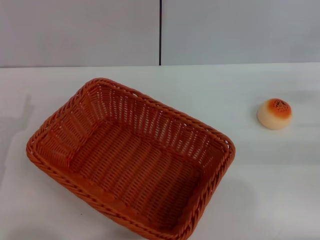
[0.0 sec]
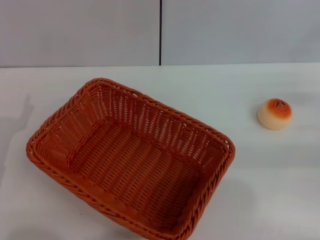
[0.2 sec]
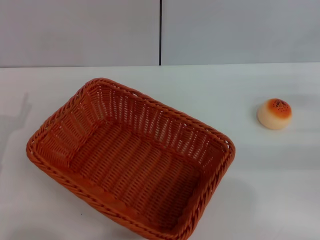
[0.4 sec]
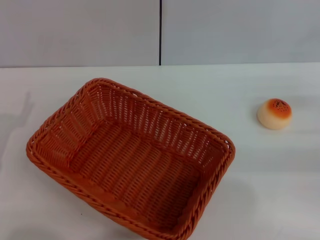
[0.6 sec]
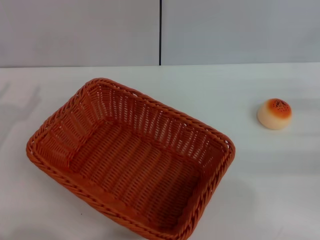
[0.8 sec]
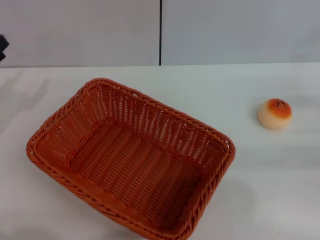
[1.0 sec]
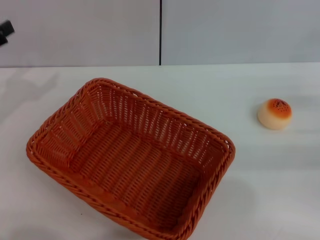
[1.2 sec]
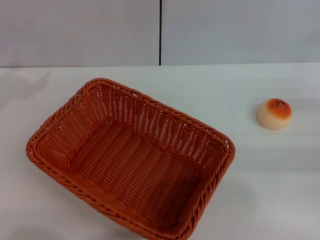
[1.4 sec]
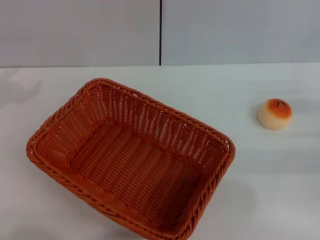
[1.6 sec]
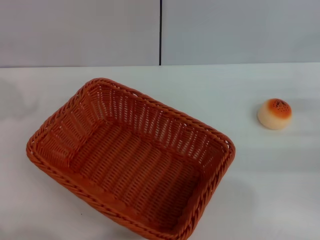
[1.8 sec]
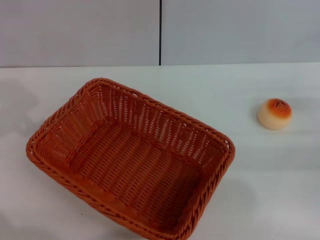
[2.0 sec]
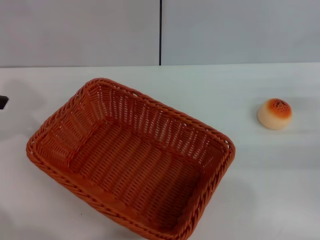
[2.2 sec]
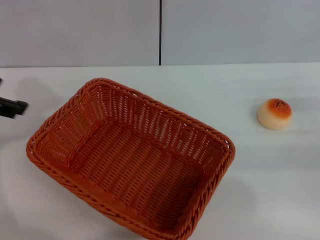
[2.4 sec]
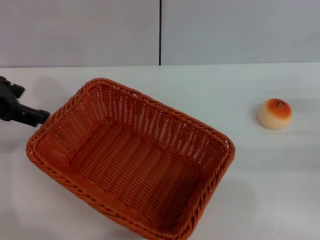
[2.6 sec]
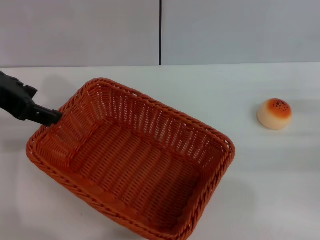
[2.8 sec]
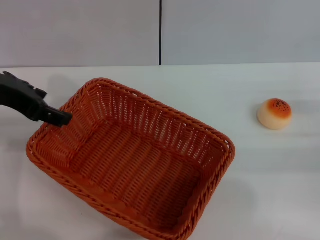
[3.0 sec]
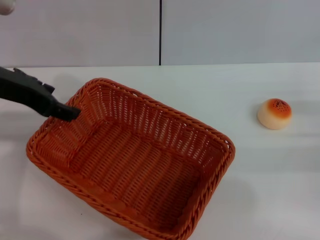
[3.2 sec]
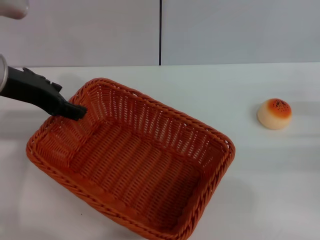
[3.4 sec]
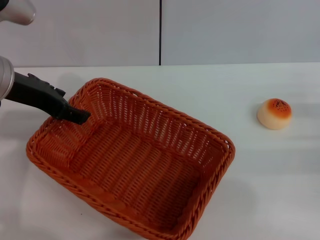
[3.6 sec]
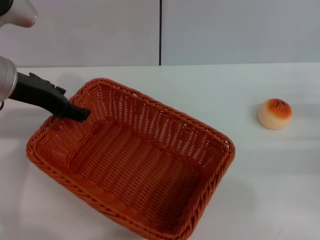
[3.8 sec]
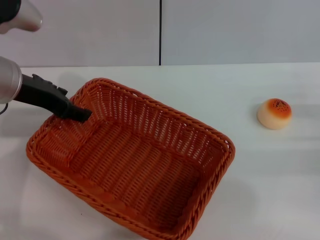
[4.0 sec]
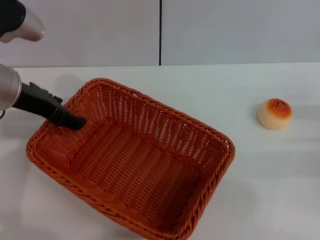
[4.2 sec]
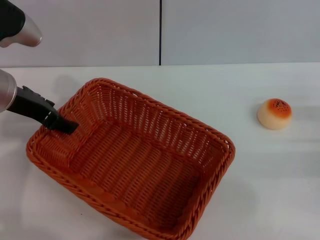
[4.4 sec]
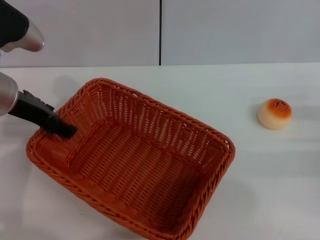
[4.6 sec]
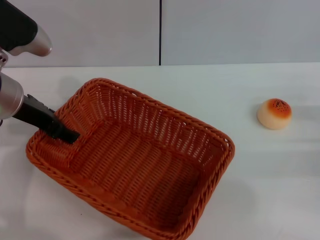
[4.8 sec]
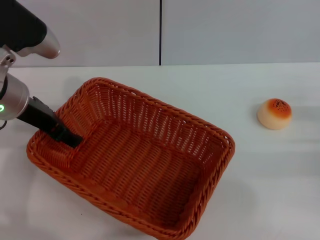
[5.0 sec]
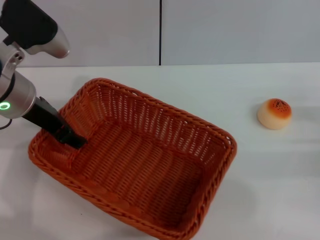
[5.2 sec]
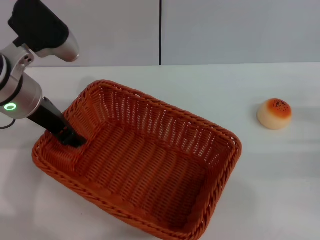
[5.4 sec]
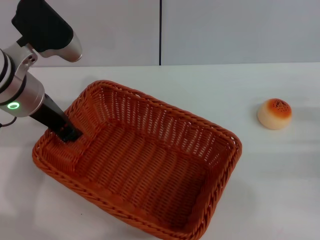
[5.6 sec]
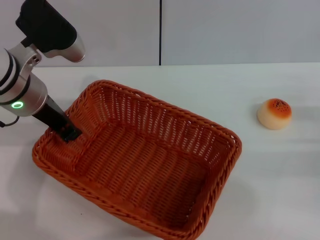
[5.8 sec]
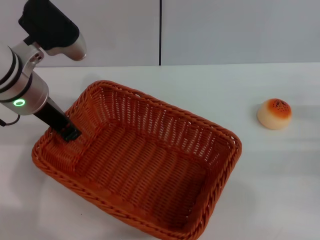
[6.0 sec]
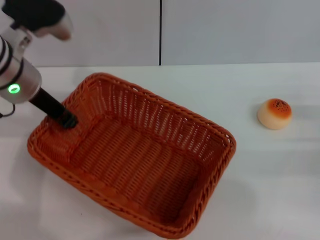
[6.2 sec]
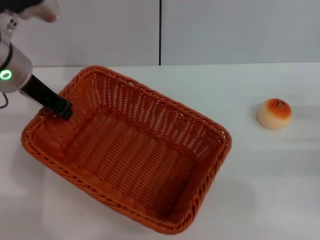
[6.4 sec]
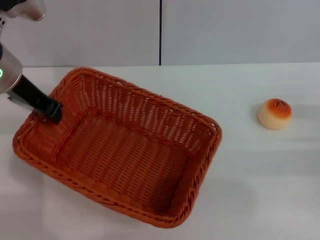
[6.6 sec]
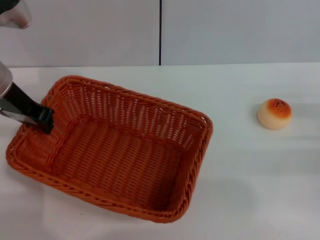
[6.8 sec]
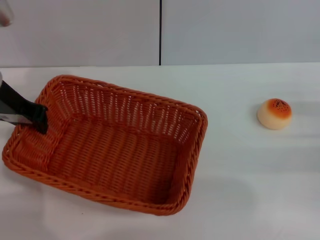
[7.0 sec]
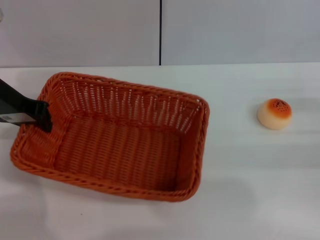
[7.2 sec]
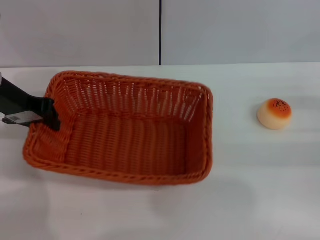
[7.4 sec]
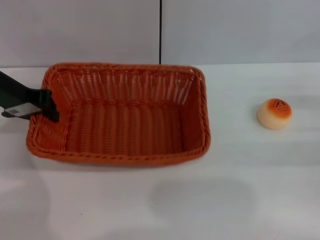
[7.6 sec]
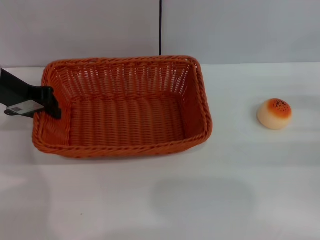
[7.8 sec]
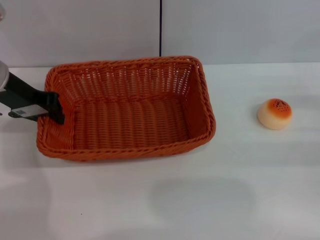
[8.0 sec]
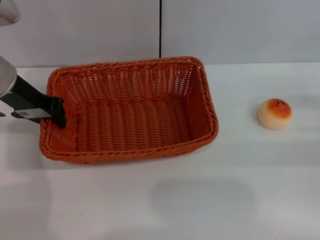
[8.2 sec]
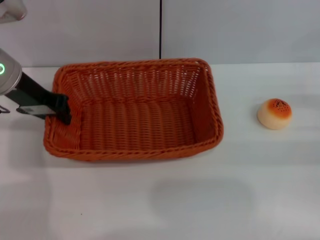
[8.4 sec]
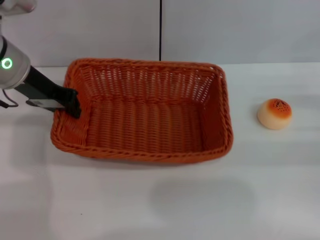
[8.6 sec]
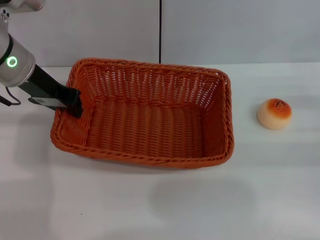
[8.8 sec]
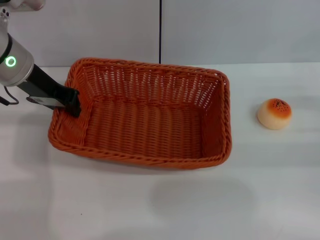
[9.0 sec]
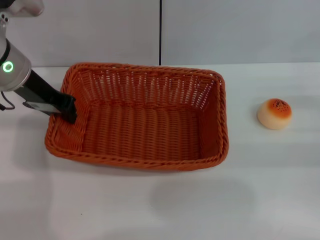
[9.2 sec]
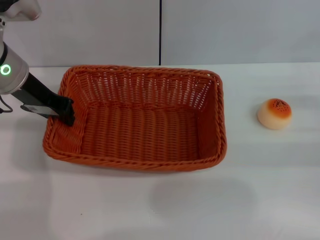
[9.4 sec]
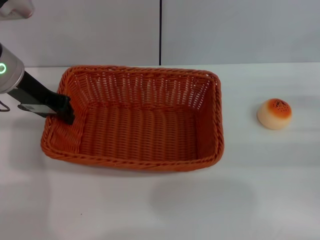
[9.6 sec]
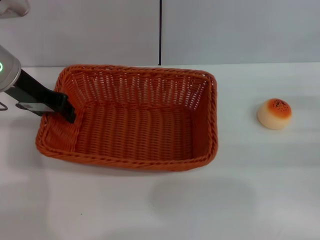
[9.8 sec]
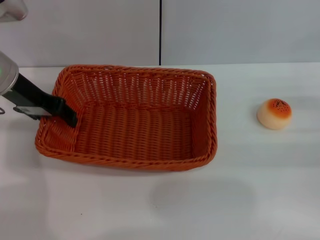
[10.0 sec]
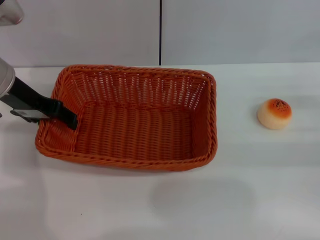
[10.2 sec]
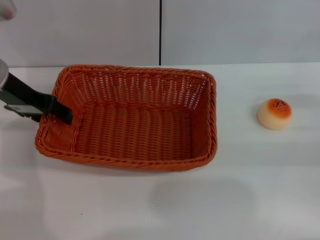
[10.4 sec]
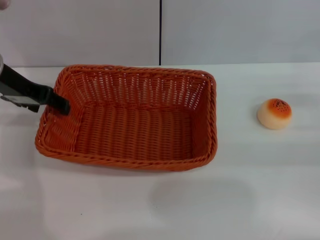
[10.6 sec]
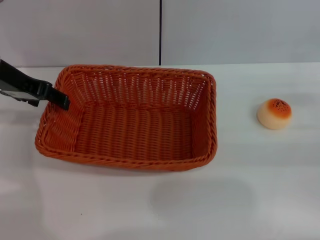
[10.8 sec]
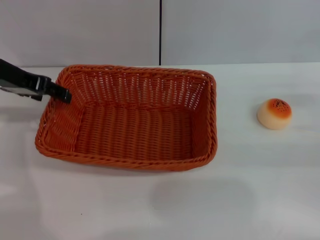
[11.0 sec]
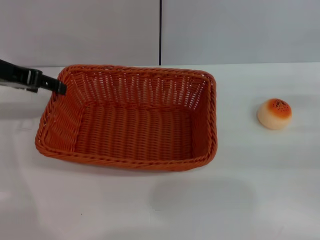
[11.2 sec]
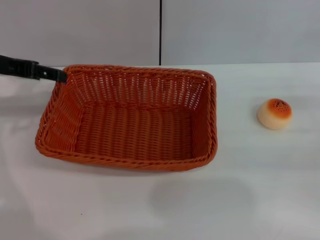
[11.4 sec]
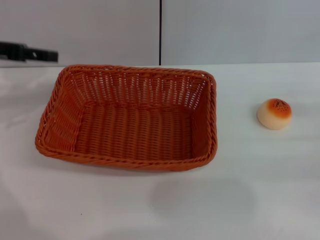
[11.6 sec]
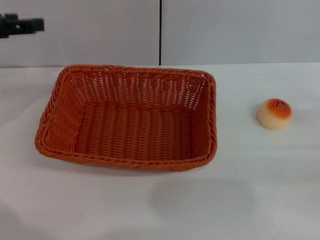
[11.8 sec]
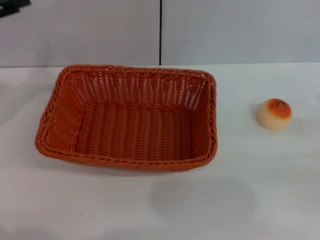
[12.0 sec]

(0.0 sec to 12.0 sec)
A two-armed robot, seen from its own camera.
Step, 0.0 sec - 11.6 sec: Move the basket to the center of view with the left gripper.
1.6 sec - 3.0 sec: The left gripper is displaced to the right by roughly 15 cm.
3.0 sec - 4.4 sec: The left gripper moves downward, some 5 cm.
4.4 sec - 6.0 sec: The left gripper closes its fingers.
6.0 sec - 7.6 sec: The left gripper shifts roughly 10 cm to the left.
7.6 sec - 9.0 sec: The left gripper ends up roughly 5 cm from where it was.
9.0 sec - 10.4 sec: The left gripper opens.
10.4 sec - 12.0 sec: The left gripper travels to the left by approximately 10 cm.

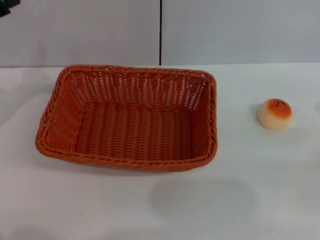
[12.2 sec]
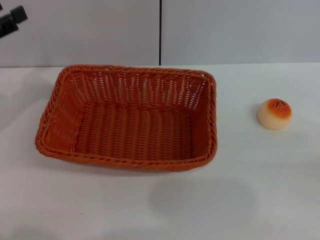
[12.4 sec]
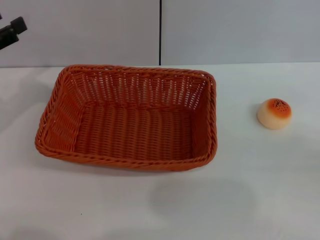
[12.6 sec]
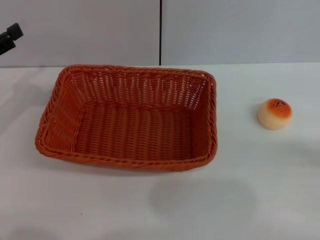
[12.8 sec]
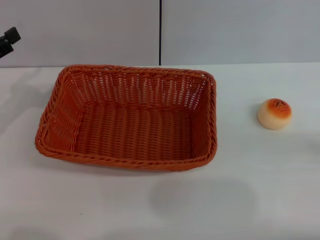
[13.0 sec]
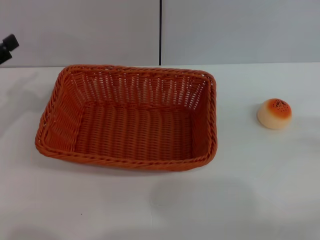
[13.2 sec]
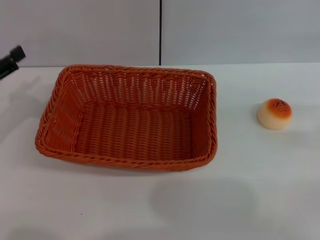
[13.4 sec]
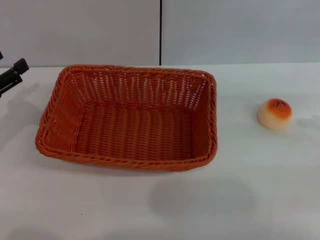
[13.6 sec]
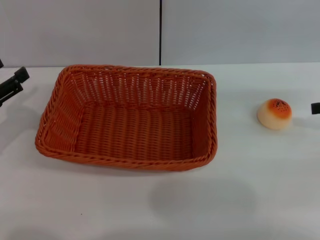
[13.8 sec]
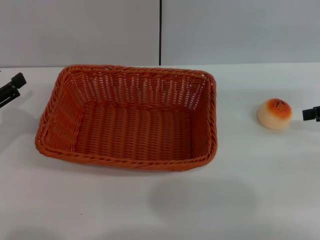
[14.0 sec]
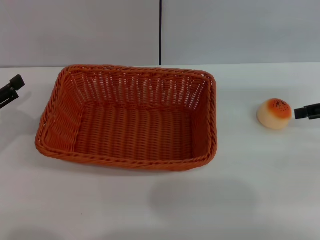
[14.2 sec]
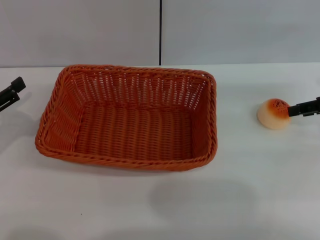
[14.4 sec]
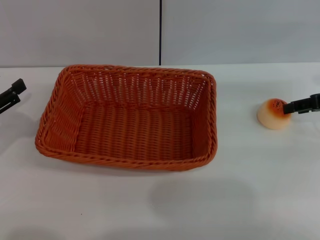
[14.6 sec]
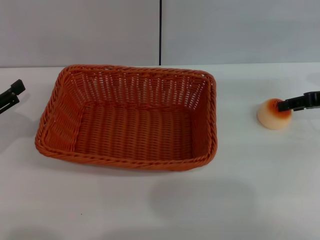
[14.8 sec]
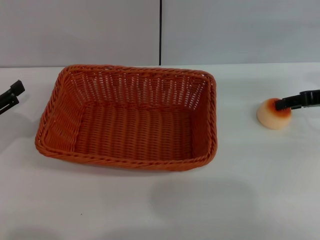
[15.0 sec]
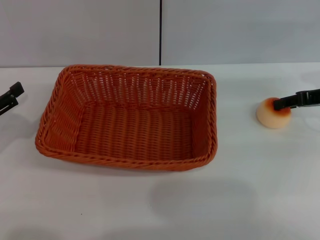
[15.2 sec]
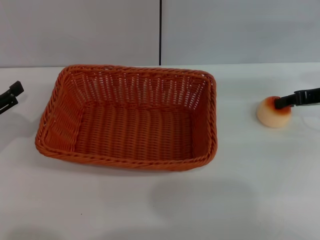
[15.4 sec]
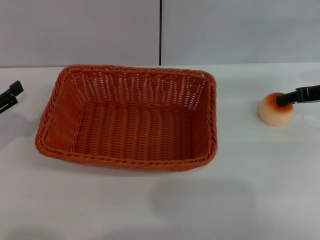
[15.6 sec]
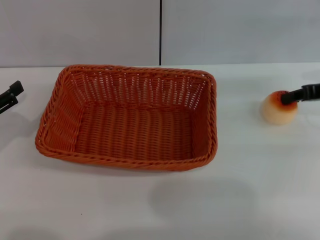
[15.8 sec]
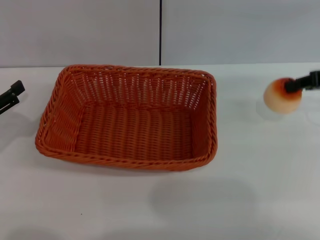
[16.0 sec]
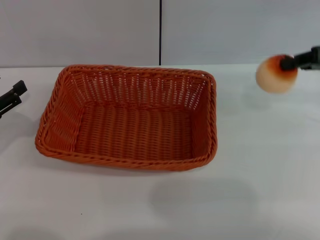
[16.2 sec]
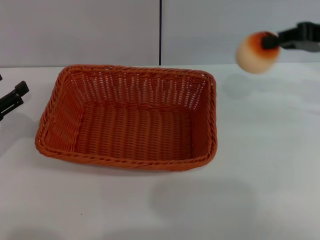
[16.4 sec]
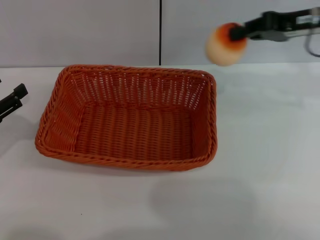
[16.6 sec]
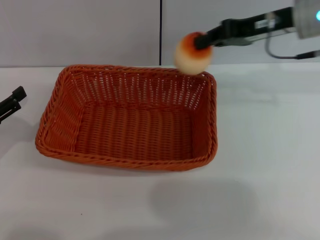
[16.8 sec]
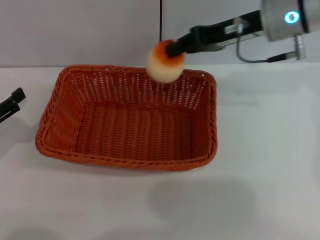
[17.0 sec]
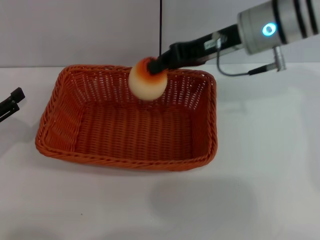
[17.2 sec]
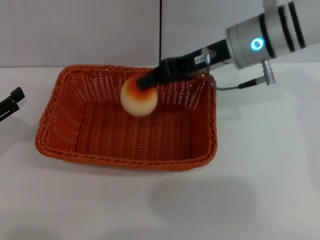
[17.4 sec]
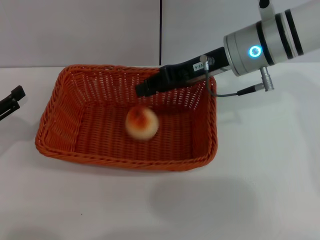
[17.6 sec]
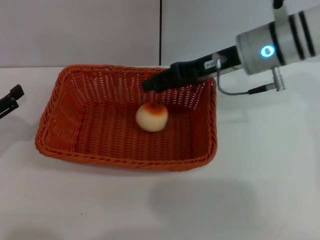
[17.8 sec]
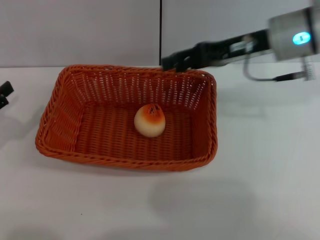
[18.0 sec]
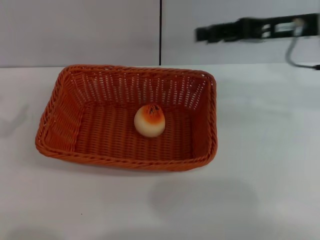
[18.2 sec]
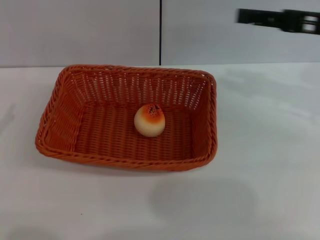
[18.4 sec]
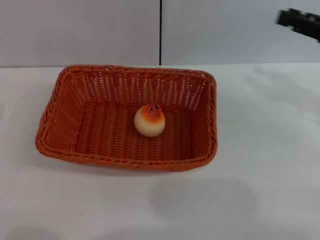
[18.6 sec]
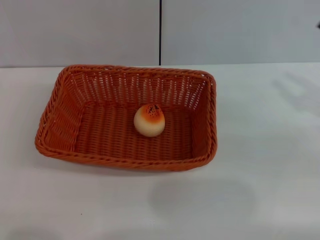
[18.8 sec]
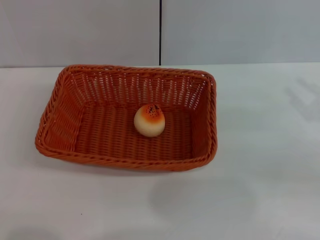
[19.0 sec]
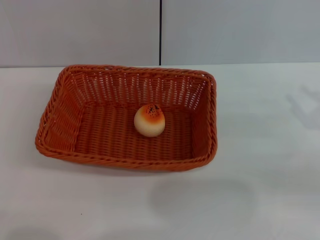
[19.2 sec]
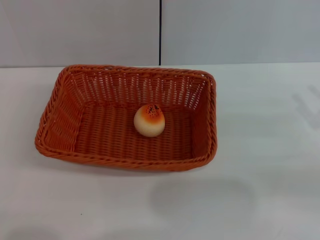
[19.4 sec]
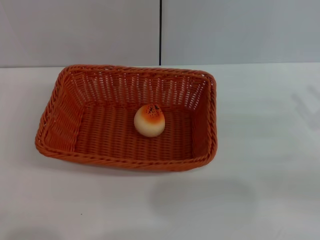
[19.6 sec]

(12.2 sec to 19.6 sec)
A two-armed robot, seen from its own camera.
Step, 12.2 sec - 15.8 sec: Pick up the egg yolk pastry with the right gripper.
Step, 16.0 sec - 18.0 sec: Place the egg yolk pastry into the basket with the right gripper.
12.2 sec - 13.6 sec: The left gripper moves downward, roughly 10 cm.
13.6 sec - 15.2 sec: The right gripper heads to the left, forward and downward, covering about 10 cm.
15.2 sec - 16.6 sec: The right gripper is displaced upward and to the left by about 10 cm, and closes its fingers.
16.6 sec - 18.2 sec: The right gripper moves roughly 10 cm to the left and comes back, and opens up.
18.2 sec - 19.6 sec: The right gripper moves backward, downward and to the right, roughly 20 cm.
